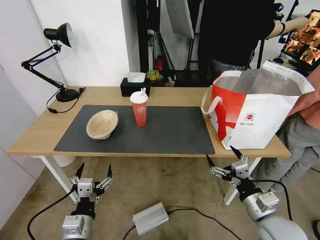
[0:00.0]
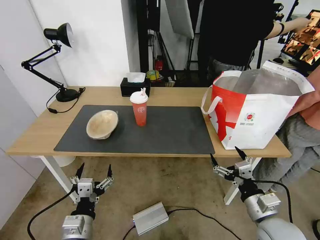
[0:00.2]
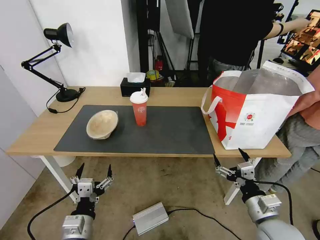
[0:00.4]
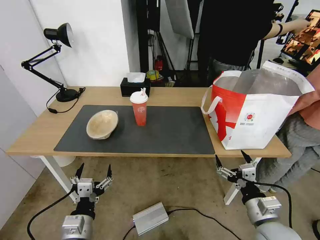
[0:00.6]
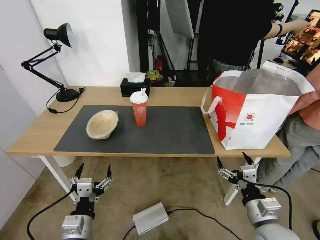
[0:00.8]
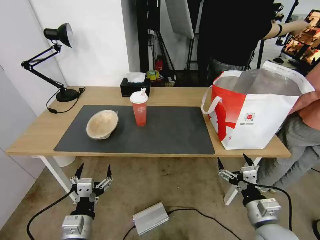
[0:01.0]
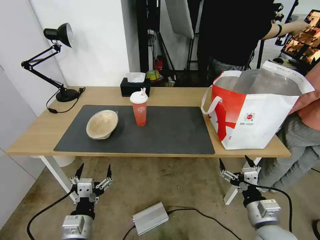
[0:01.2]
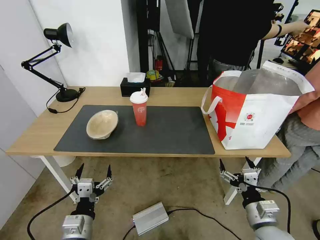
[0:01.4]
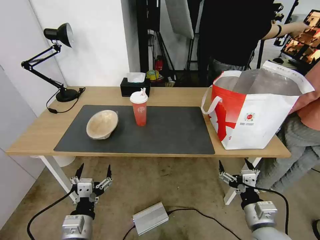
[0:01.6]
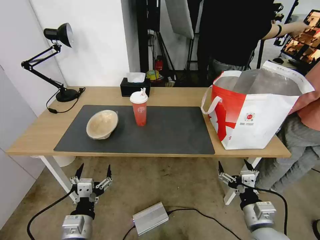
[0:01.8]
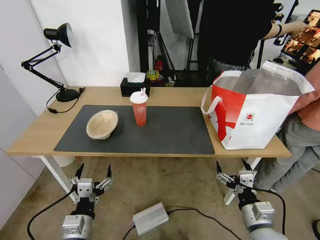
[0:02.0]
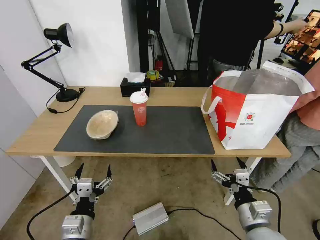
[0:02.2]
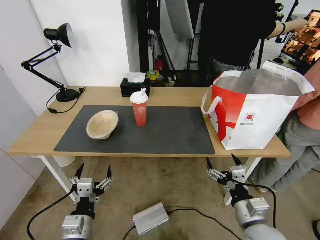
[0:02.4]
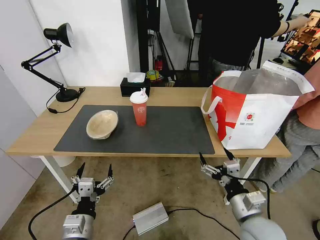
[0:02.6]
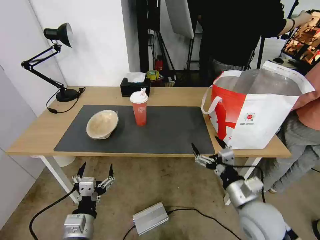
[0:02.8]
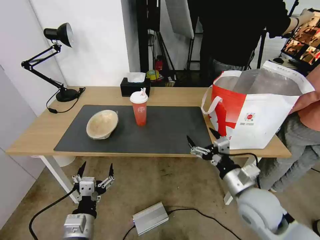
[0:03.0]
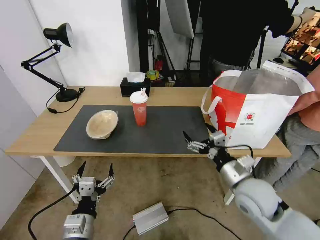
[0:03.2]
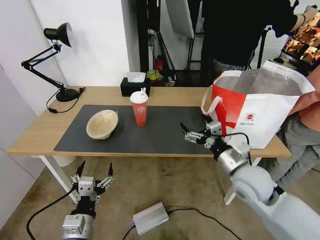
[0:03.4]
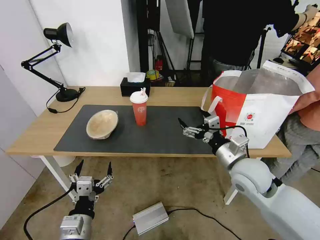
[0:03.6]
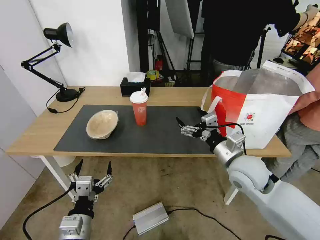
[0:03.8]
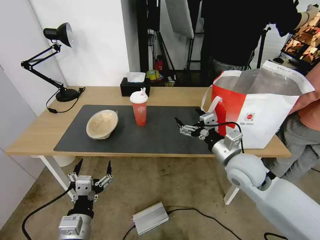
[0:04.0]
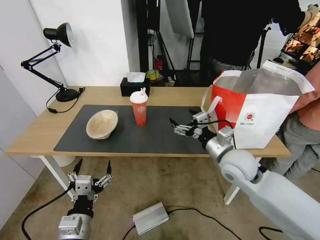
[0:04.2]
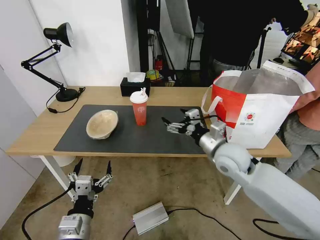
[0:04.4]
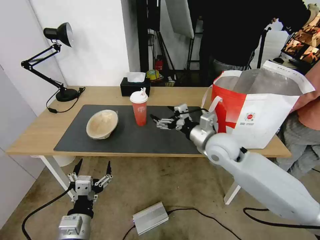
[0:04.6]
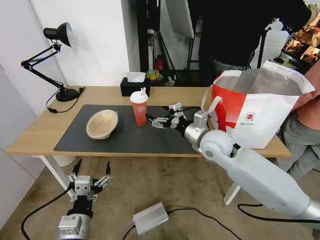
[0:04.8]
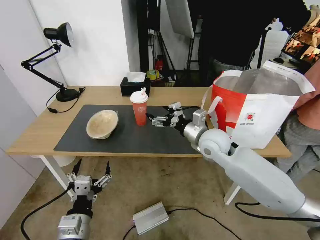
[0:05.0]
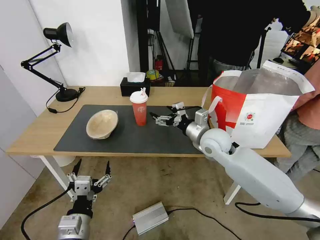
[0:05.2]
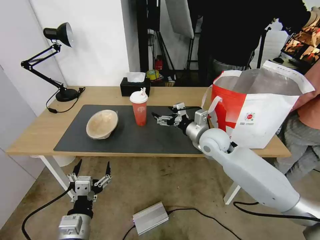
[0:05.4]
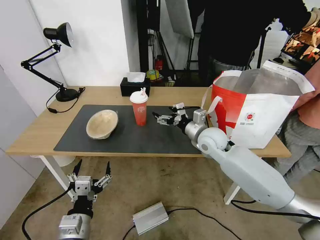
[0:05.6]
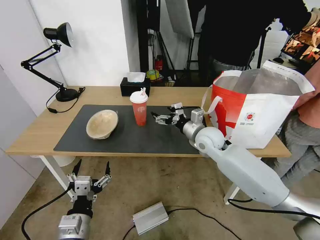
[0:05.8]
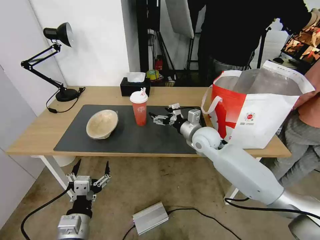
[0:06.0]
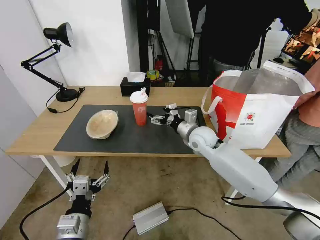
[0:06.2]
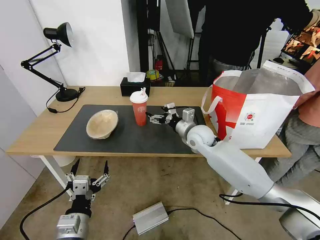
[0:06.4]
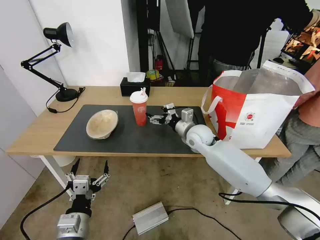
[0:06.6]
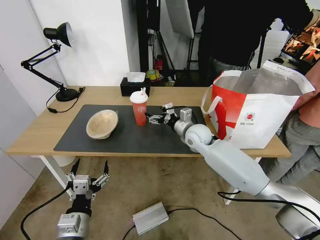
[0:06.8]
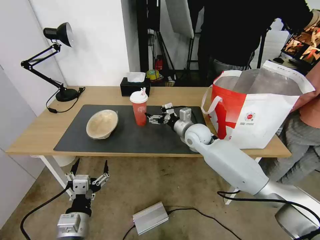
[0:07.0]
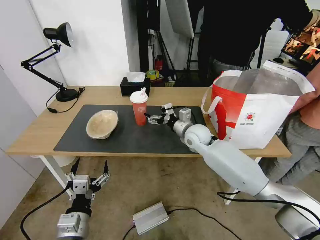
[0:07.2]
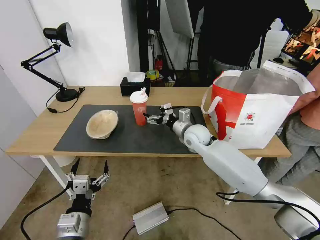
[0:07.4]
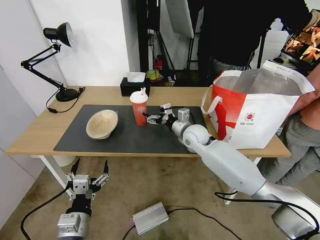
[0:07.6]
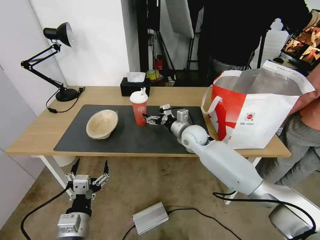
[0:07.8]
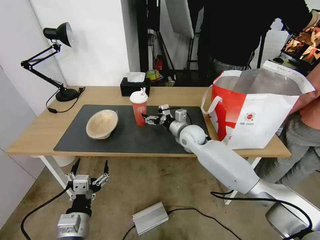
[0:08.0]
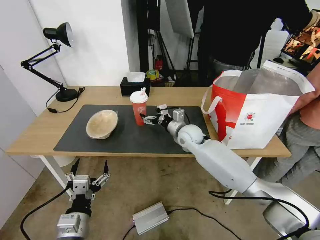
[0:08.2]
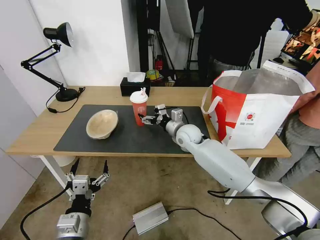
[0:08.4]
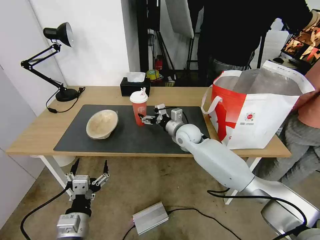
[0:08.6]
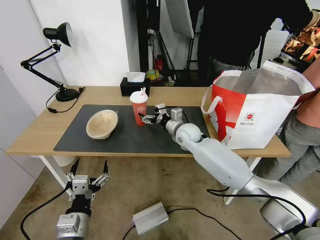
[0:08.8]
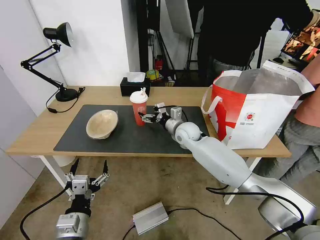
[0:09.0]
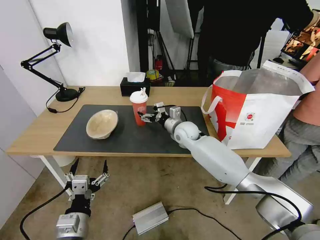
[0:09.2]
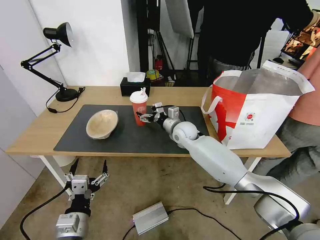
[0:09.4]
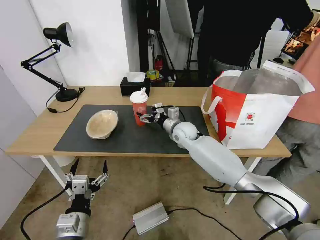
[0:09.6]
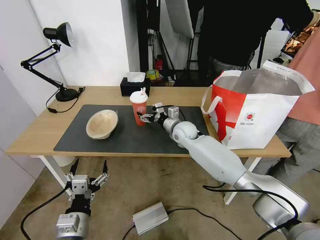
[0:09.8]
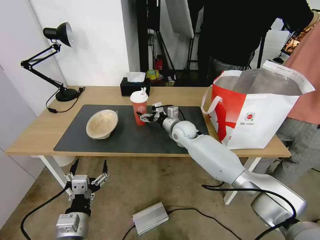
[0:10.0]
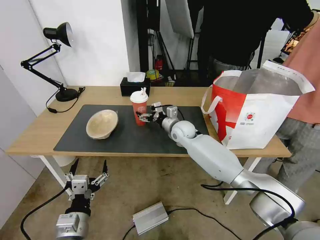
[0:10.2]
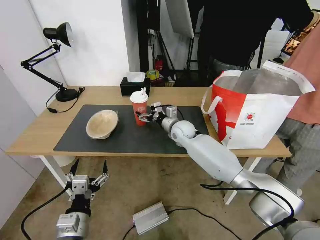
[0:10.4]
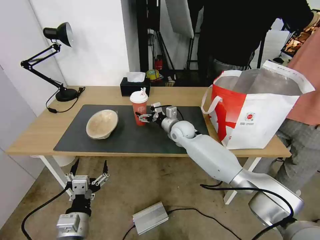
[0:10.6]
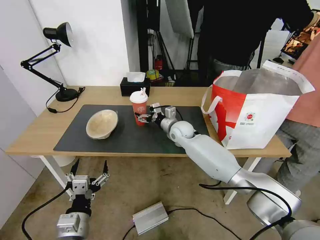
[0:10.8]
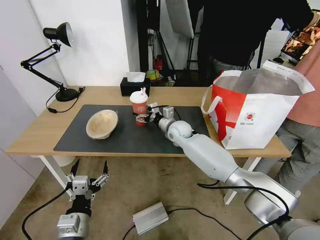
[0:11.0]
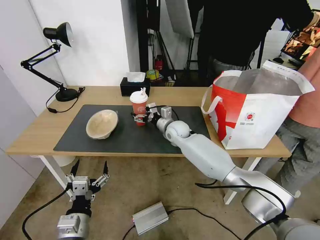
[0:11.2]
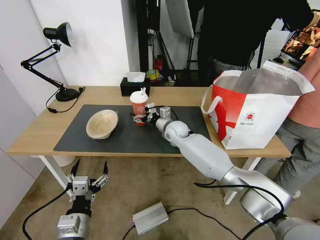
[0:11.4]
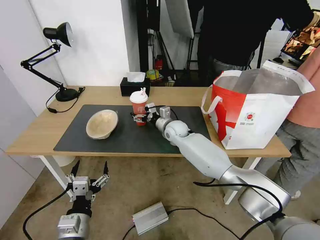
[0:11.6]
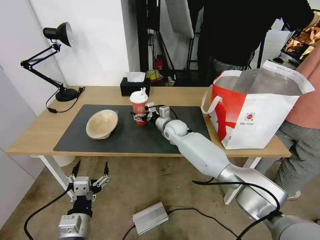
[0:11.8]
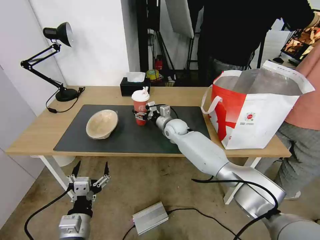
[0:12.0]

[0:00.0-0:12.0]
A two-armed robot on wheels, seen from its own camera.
Task of the whole recording: Pick up the trash from the table and place it into the takeout bag.
0:00.0 to 0:01.6: There are only small adjustments of the grippers.
0:01.6 to 0:03.0: The right gripper shifts roughly 10 cm upward and forward.
0:03.0 to 0:04.4: The right gripper heads forward, covering about 15 cm.
0:04.4 to 0:06.0: The right gripper travels forward by some 10 cm.
0:06.0 to 0:07.6: The grippers move only a little.
0:07.6 to 0:09.0: The grippers stay close to where they were, moving slightly.
0:09.0 to 0:10.4: The grippers move only a little.
0:10.4 to 0:12.0: The grippers make only small movements.

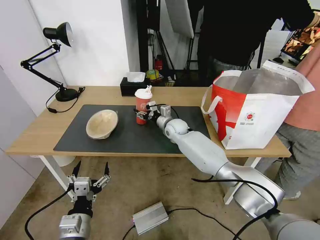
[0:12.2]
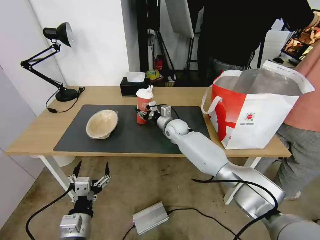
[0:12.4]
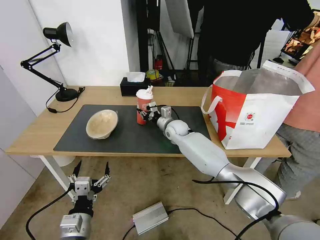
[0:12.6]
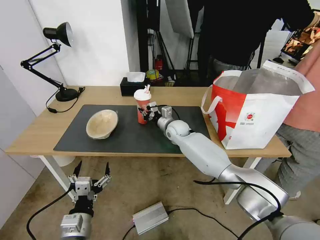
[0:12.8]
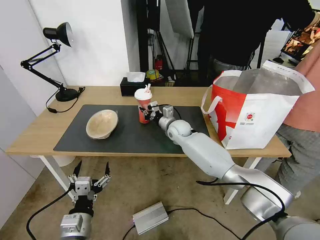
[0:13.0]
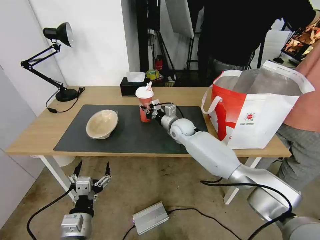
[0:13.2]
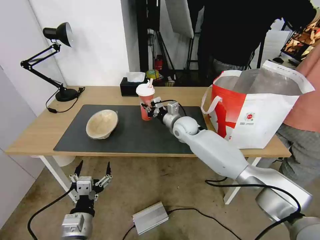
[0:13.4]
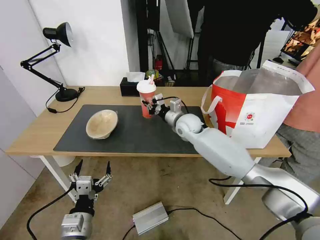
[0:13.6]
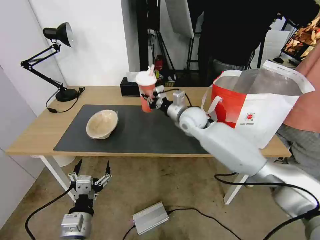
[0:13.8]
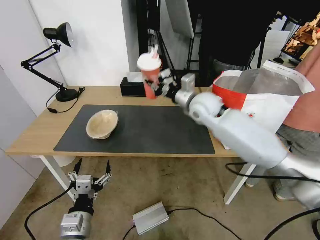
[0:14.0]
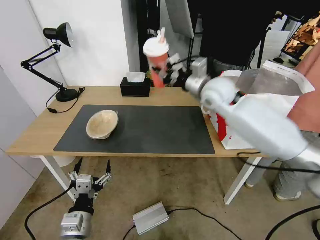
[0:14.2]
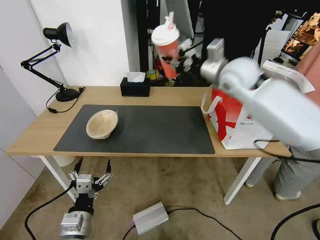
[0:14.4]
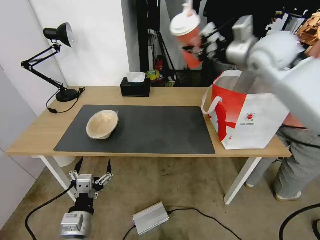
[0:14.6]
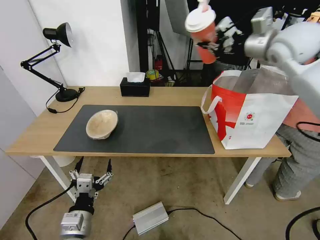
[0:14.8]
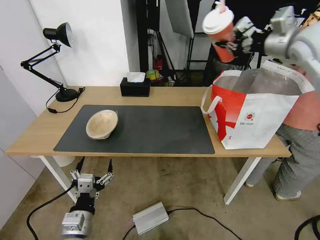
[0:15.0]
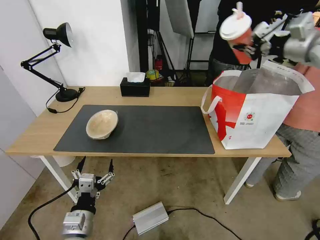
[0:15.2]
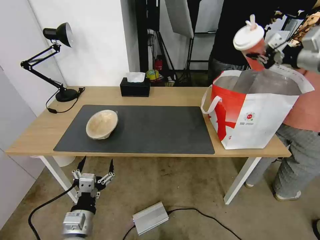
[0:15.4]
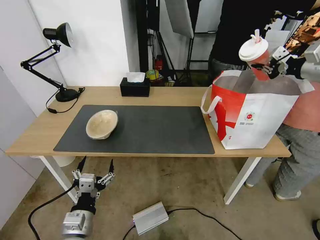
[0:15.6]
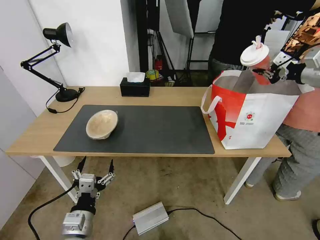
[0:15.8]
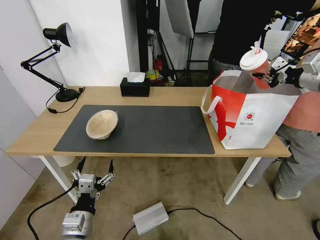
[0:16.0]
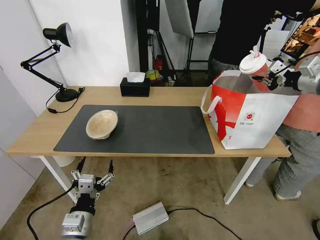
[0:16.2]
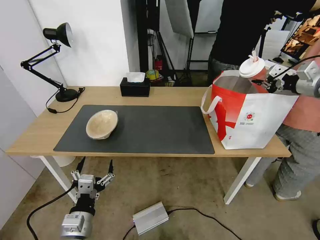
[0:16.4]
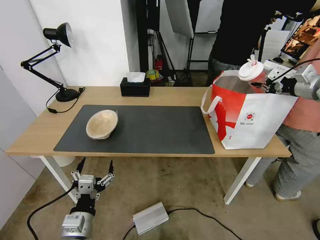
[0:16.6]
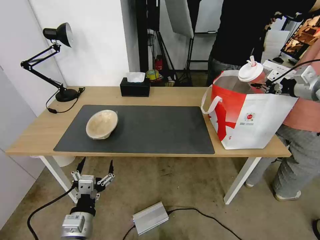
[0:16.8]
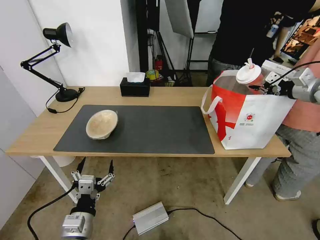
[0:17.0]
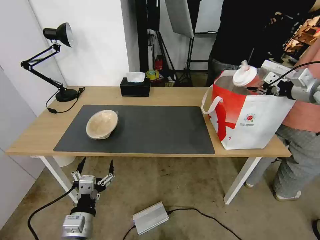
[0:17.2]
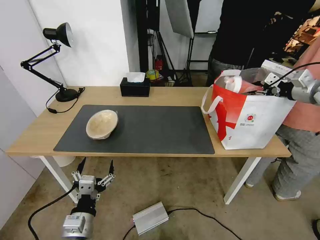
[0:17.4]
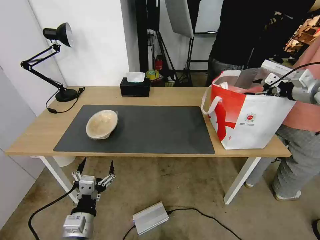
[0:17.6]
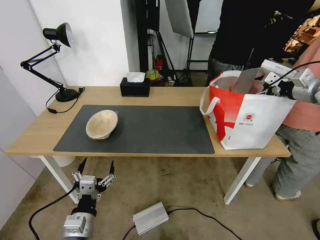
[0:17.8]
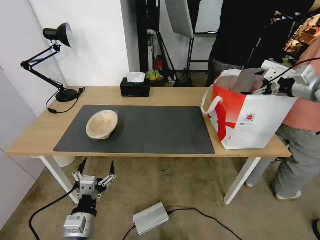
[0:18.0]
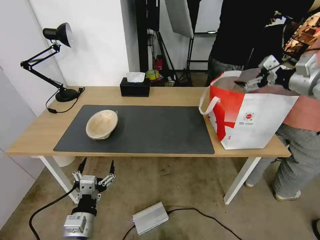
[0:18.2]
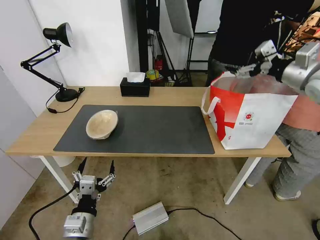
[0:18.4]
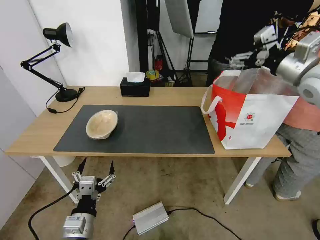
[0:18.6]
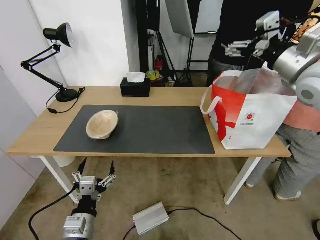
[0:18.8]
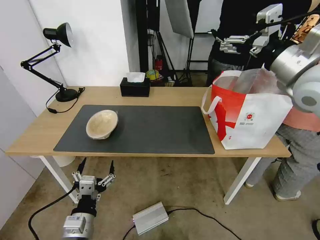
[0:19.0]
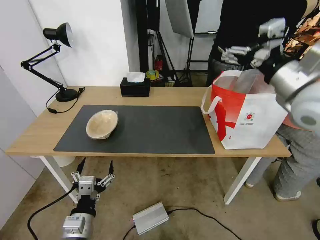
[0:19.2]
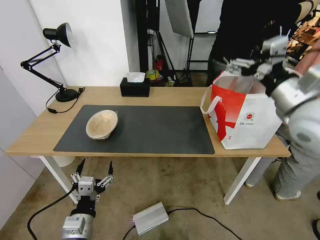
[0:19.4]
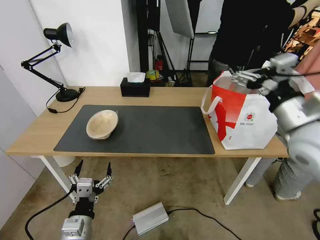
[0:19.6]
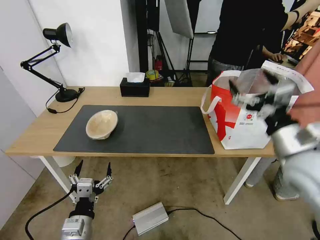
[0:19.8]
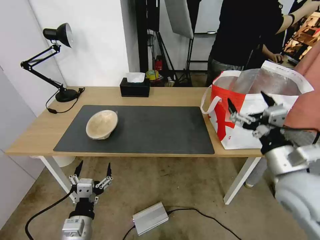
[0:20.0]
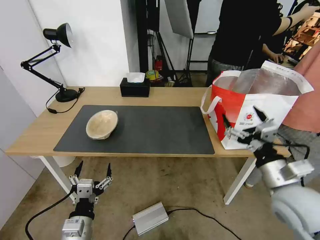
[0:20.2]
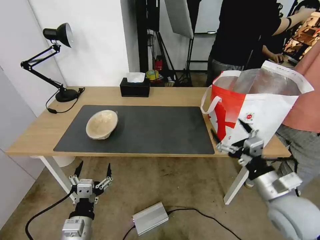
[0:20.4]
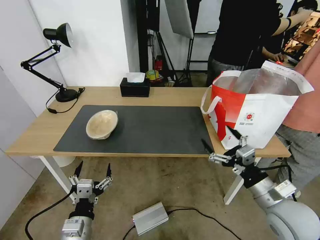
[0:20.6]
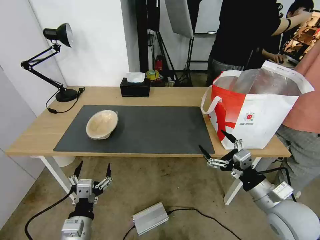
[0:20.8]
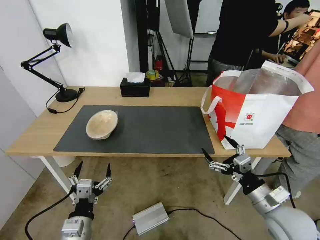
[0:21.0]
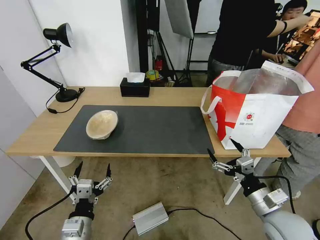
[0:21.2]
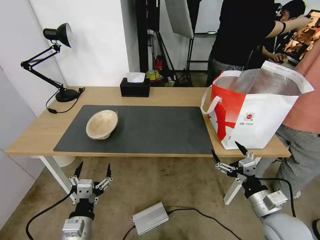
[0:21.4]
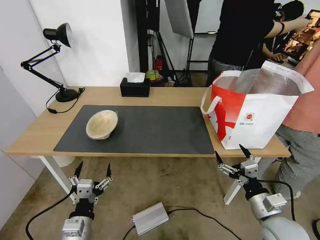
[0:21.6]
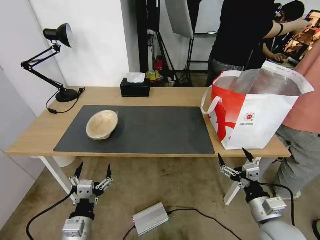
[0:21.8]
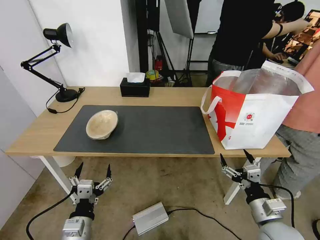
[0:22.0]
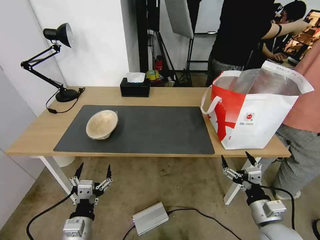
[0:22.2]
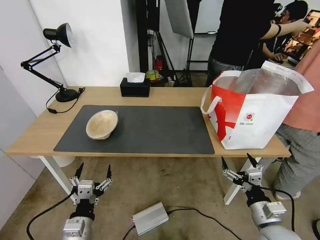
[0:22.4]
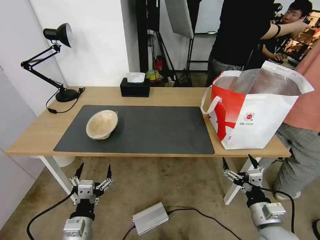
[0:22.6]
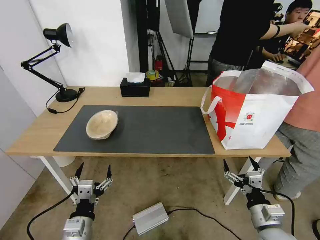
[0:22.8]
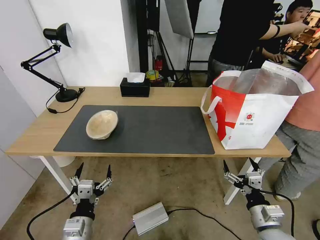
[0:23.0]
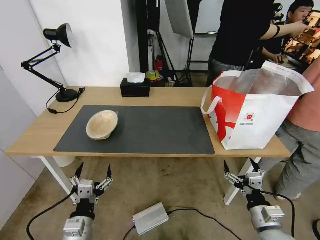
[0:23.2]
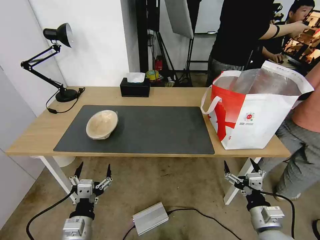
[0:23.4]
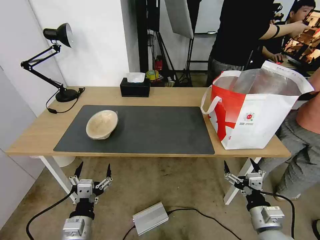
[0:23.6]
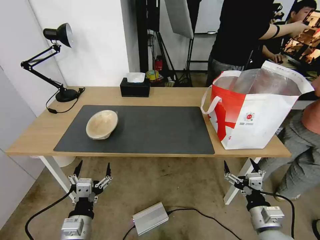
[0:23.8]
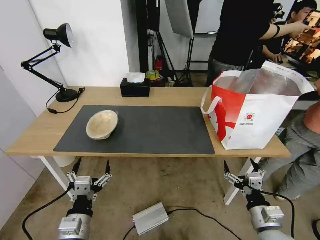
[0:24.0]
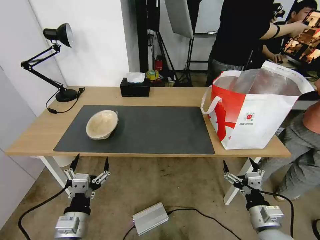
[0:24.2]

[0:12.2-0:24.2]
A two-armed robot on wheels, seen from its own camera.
Task of the whole recording: Pick up the trash from the table and place it into the takeout bag.
0:12.2 to 0:13.8: The right gripper shifts some 10 cm upward and backward, and closes.
0:13.8 to 0:15.2: The right gripper is displaced to the right and upward by approximately 40 cm.
0:15.2 to 0:16.6: The right gripper travels downward and to the right by some 15 cm.
0:16.6 to 0:18.2: The right gripper ends up roughly 5 cm from where it was, and opens.
0:18.2 to 0:19.8: The right gripper shifts about 25 cm backward, to the left and downward.
0:19.8 to 0:21.2: The right gripper is displaced downward and backward by roughly 20 cm.
0:21.2 to 0:22.6: The right gripper goes roughly 5 cm downward.
0:22.6 to 0:24.2: The grippers make only small movements.
